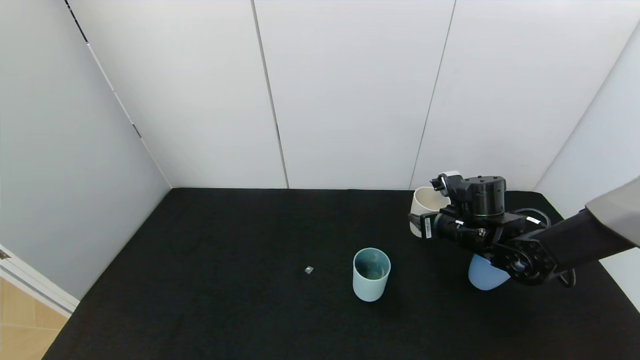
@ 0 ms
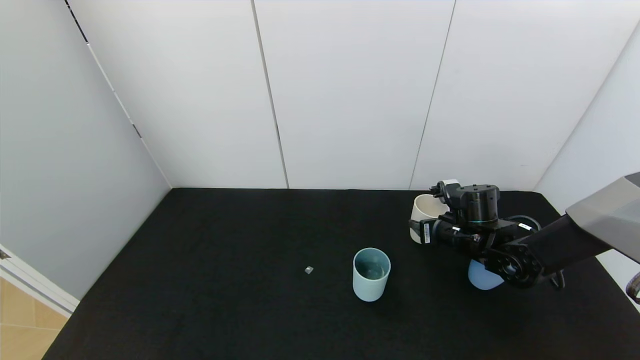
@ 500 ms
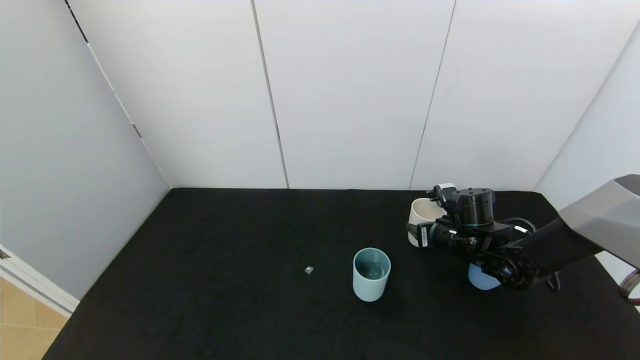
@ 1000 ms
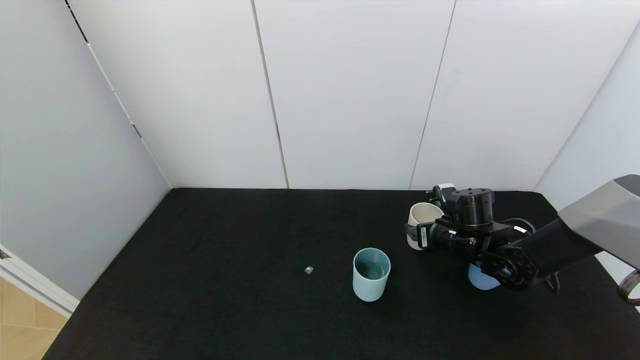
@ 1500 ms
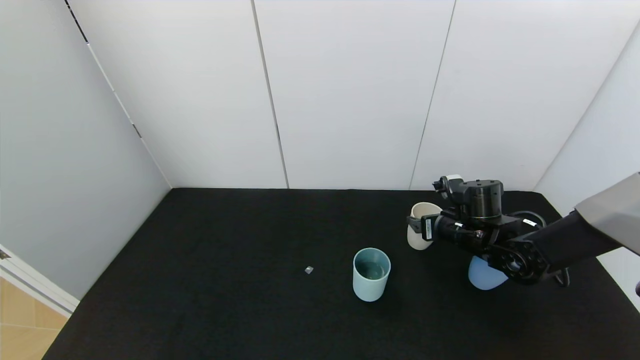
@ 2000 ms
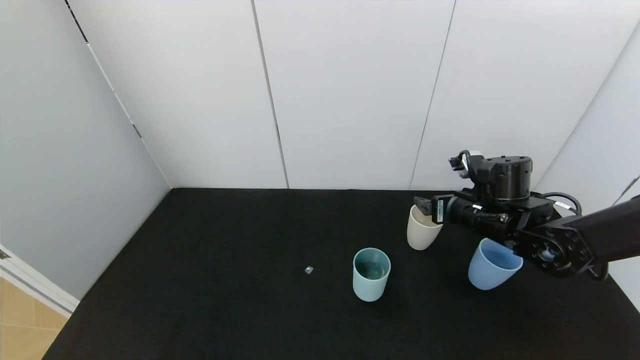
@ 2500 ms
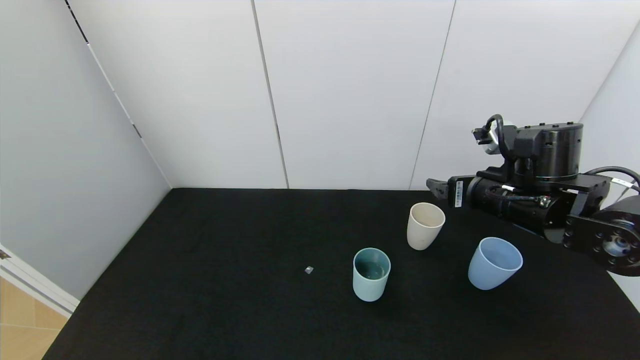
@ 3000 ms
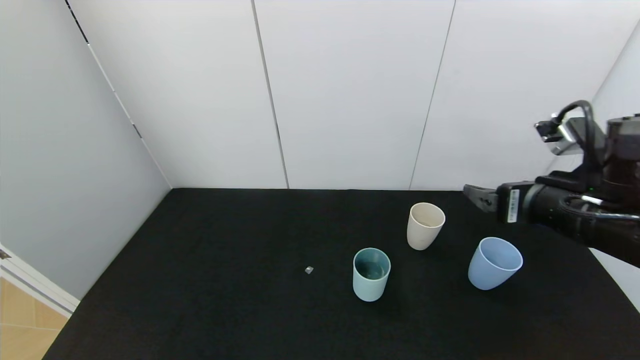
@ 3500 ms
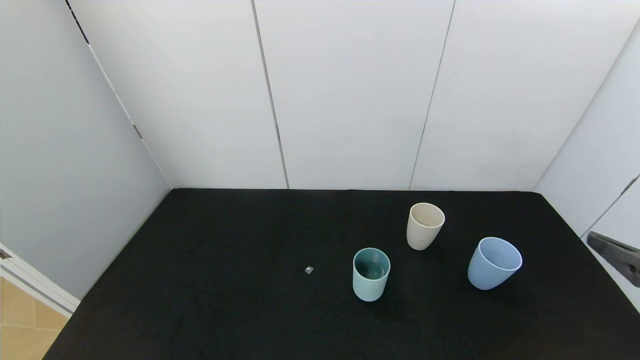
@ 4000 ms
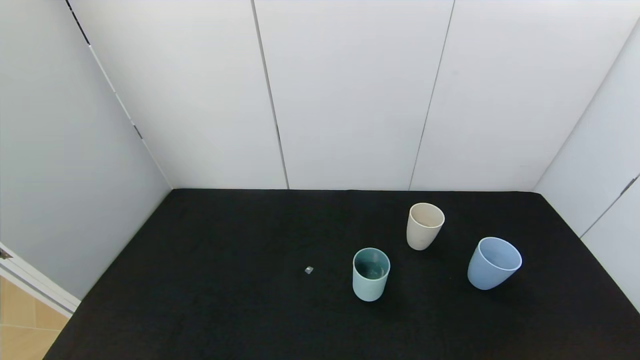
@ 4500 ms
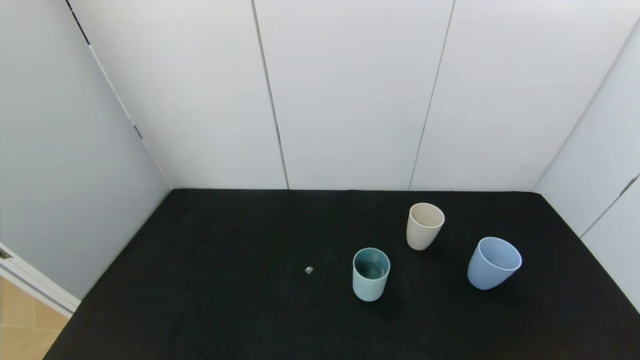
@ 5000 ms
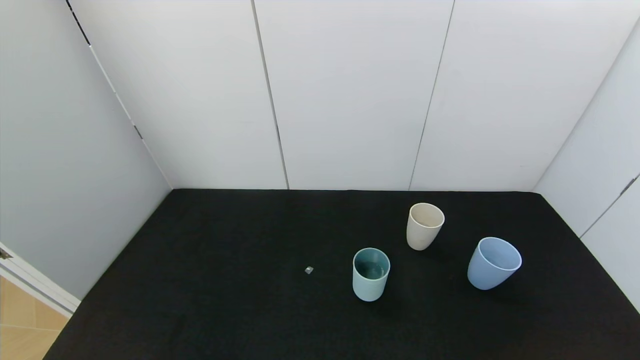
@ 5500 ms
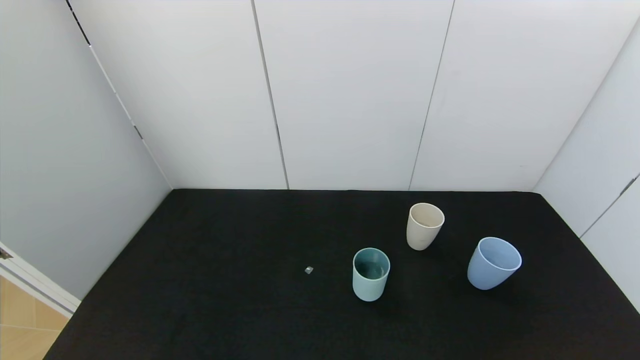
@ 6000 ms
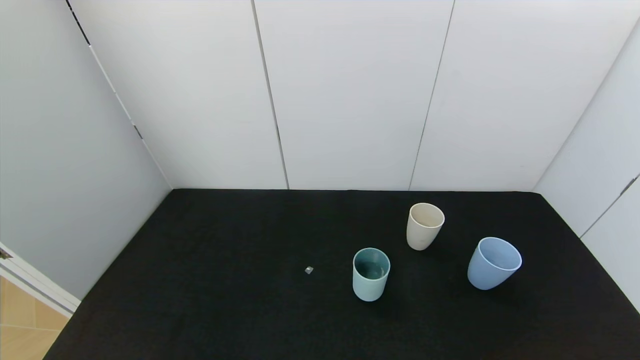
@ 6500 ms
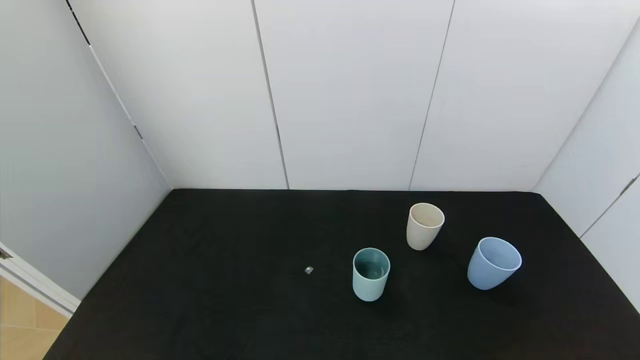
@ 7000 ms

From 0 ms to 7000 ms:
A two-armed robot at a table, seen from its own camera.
Task of the whole recording: use the gripper to pour the water into the other two cups on black table.
Step, from 0 ms to 3000 ms: Place the white cup with the right gripper.
From 0 ms to 2000 ms: The right gripper opens.
From 2000 ms to 3500 ms: The right gripper goes some 20 cm backward and upward.
From 3500 ms to 5000 ms: The right gripper shifts approximately 30 cm backward and to the right.

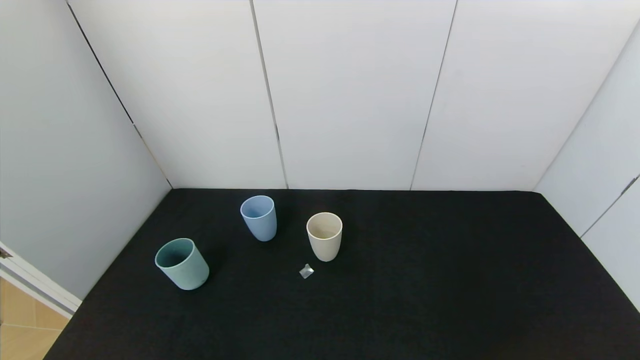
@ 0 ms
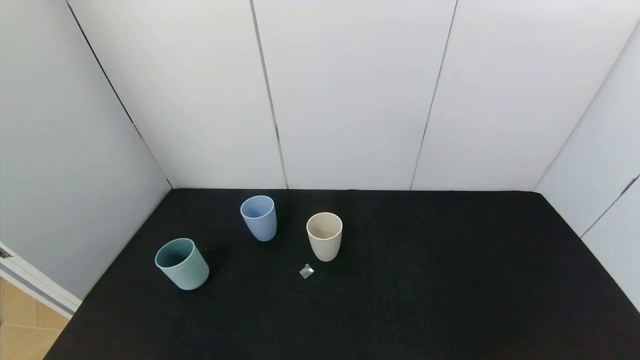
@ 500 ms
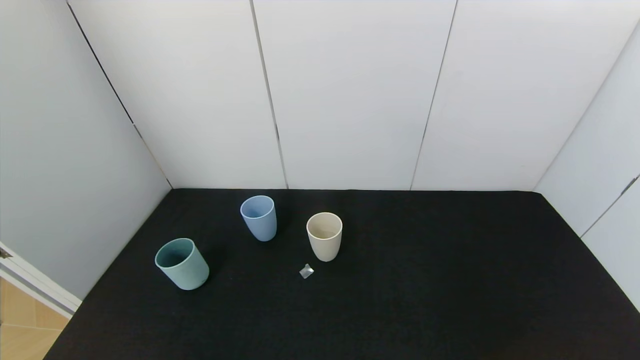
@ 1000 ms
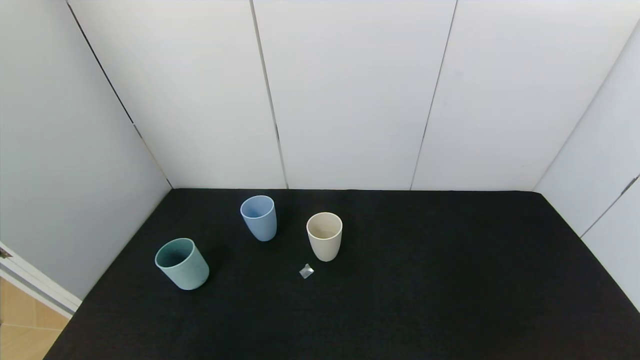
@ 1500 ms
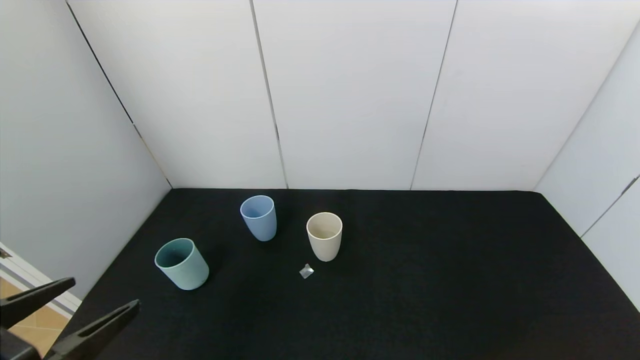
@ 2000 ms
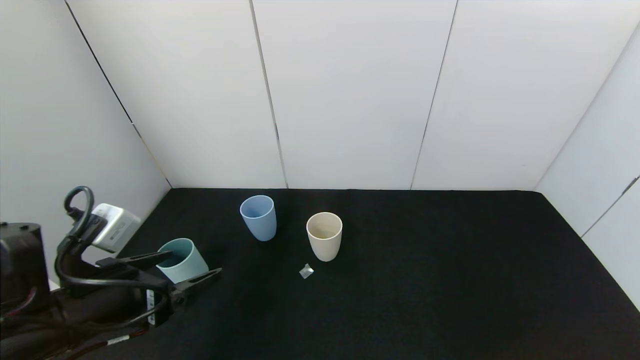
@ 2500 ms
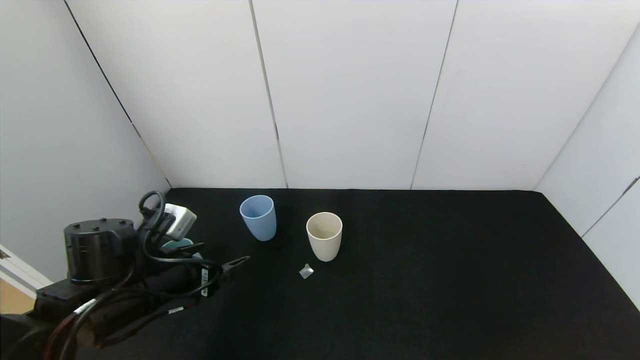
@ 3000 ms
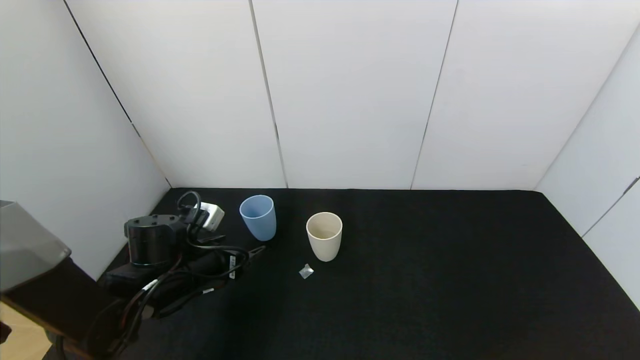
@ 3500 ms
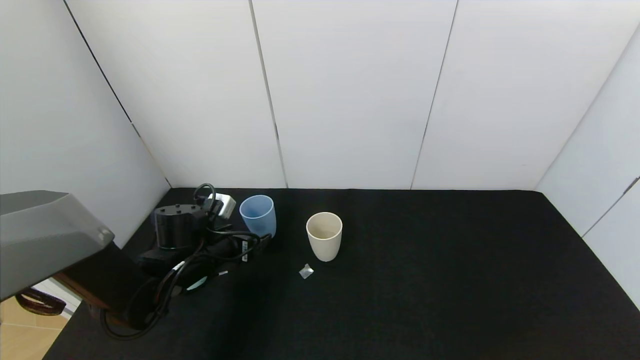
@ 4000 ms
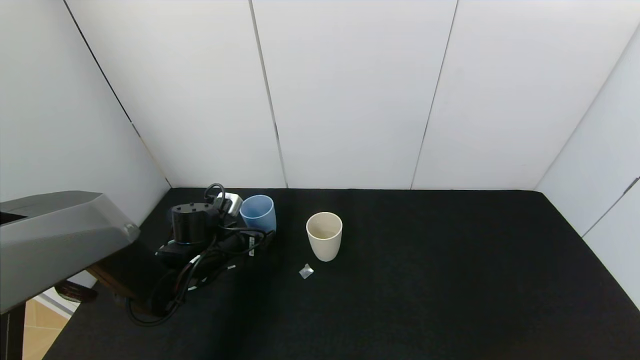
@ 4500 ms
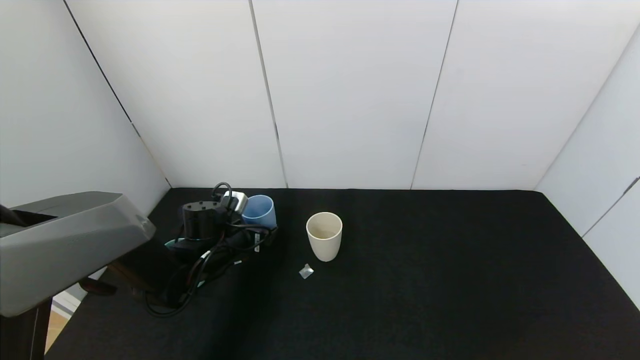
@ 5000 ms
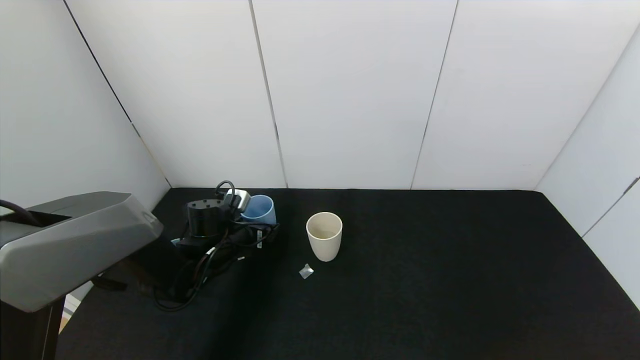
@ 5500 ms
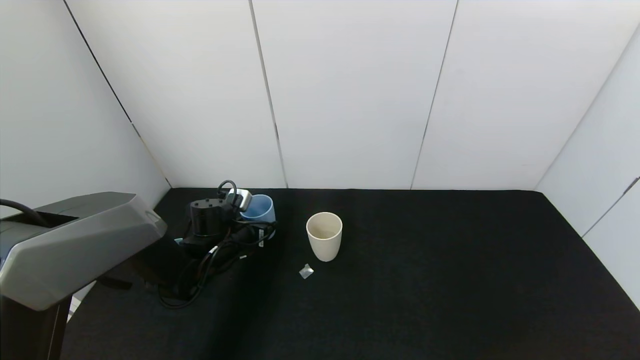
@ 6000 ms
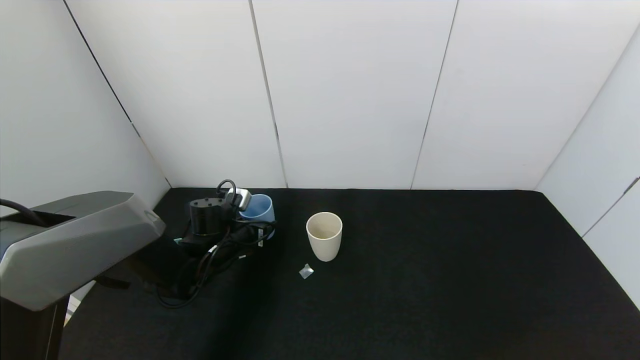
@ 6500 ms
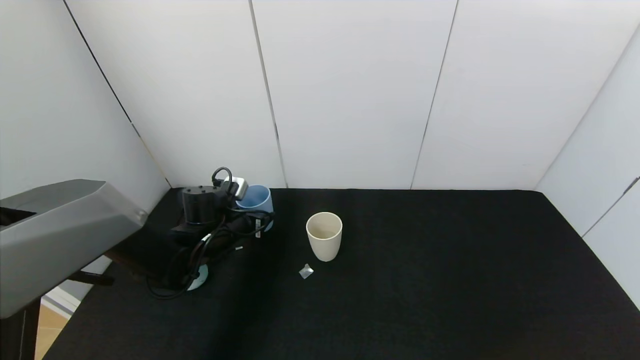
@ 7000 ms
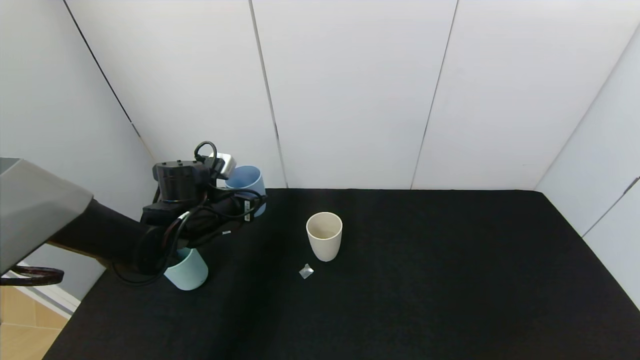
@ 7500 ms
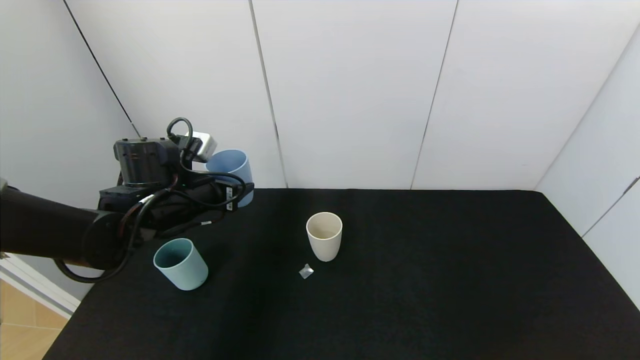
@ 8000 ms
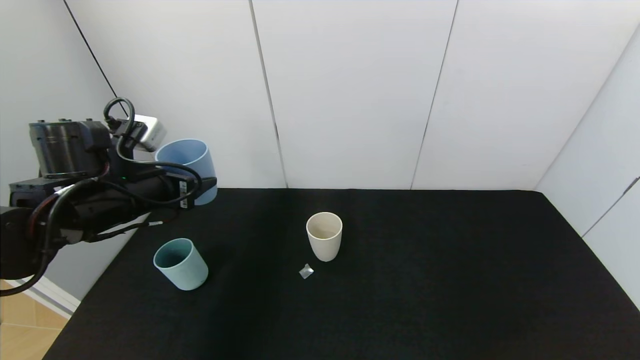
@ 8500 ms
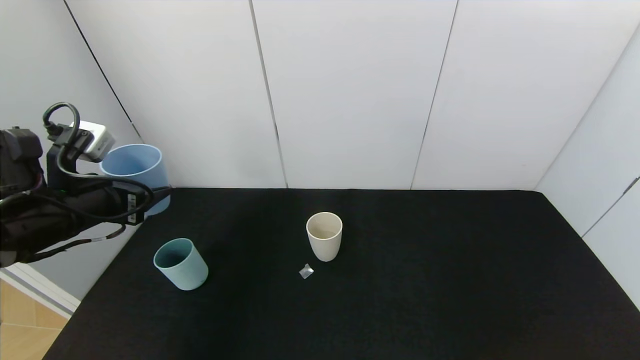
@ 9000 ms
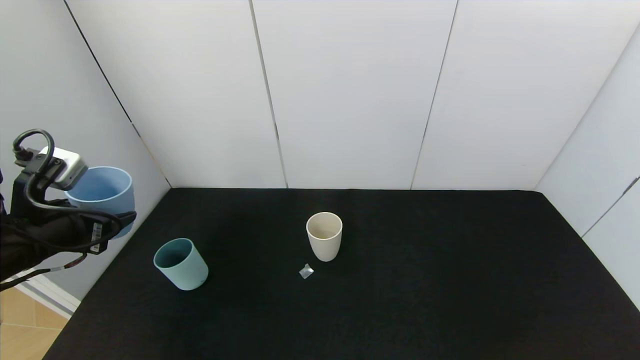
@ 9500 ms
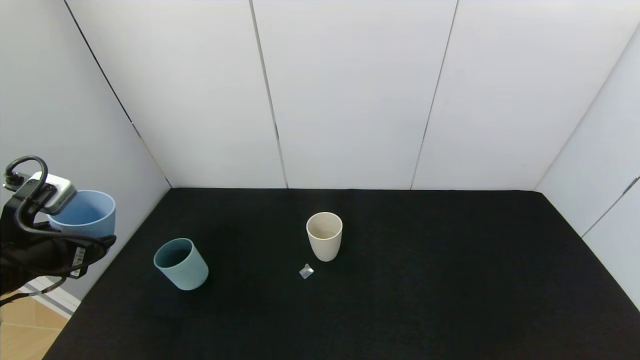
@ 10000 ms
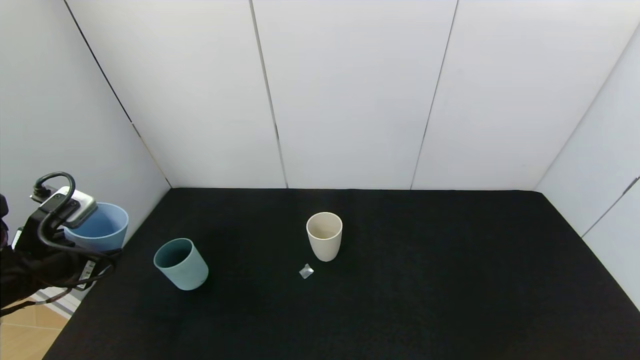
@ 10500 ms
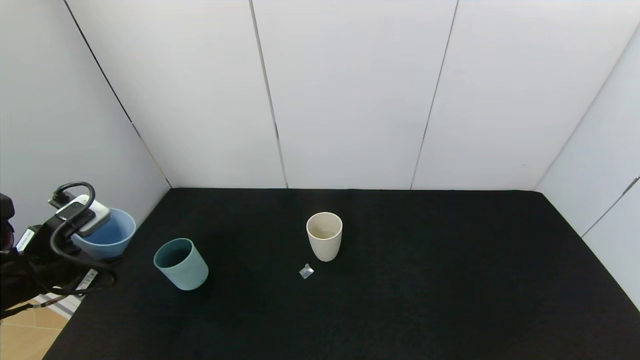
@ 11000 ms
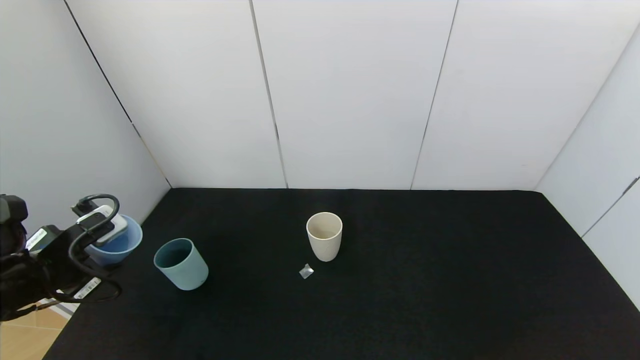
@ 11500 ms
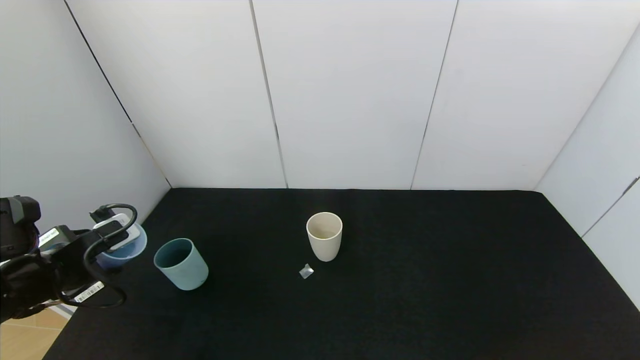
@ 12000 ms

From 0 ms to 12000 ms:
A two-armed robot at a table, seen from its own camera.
Task of the whole recording: use the gripper to pour the water into the other two cups on black table.
Step, from 0 ms to 6500 ms: Pick up the blue plastic cup with left gripper.
From 0 ms to 2000 ms: The left gripper goes approximately 15 cm forward and upward.
From 2000 ms to 4000 ms: The left gripper shifts some 30 cm forward and downward.
From 4000 ms to 6000 ms: The left gripper heads forward, covering about 5 cm, and closes up.
From 6000 ms to 8000 ms: The left gripper moves upward, some 15 cm.
From 8000 ms to 10000 ms: The left gripper is displaced backward and to the left by approximately 20 cm.

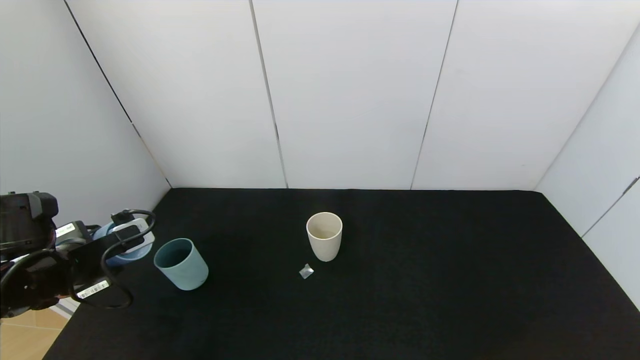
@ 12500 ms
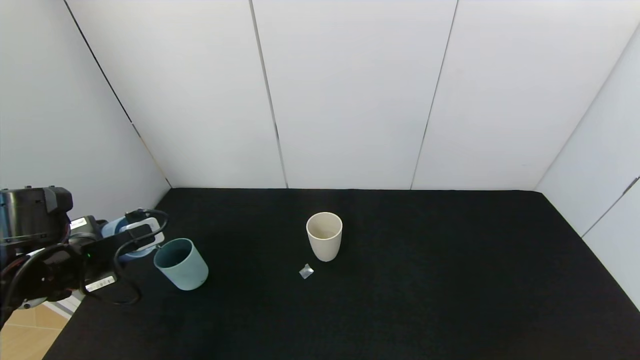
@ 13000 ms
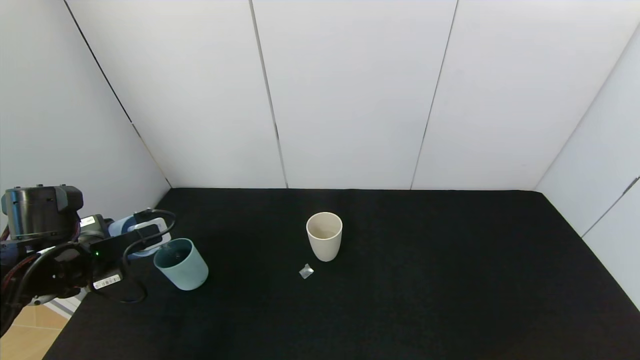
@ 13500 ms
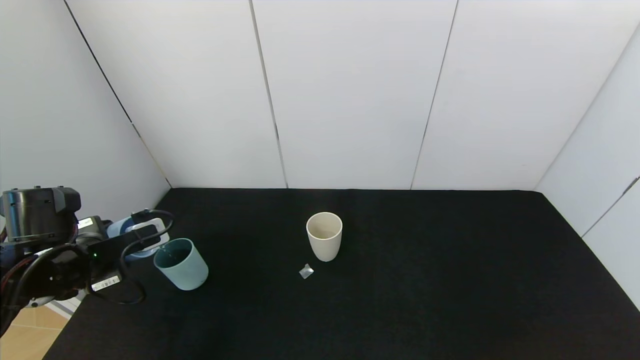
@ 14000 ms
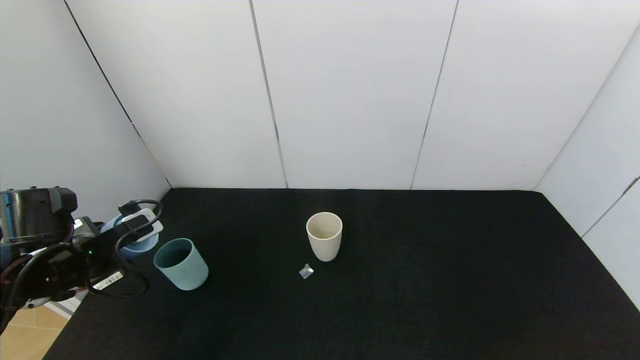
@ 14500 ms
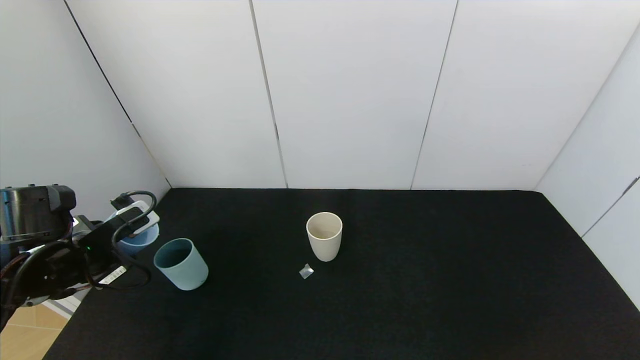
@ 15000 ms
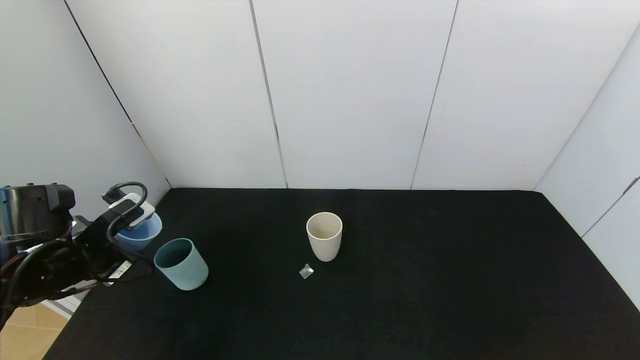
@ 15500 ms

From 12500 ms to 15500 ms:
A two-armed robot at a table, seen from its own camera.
Task of the whole recording: use the gripper to pour the water into the other two cups on black table.
Step, from 12500 ms to 15000 ms: Pour water into the green plastic cup with left gripper.
From 12500 ms to 14000 ms: The grippers move only a little.
